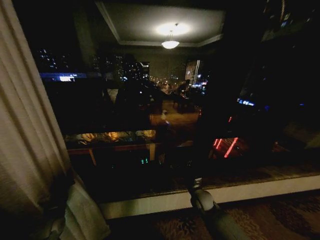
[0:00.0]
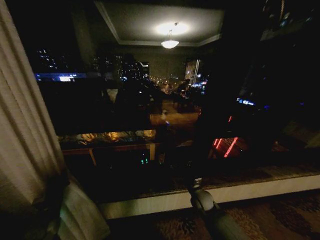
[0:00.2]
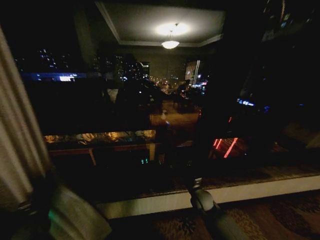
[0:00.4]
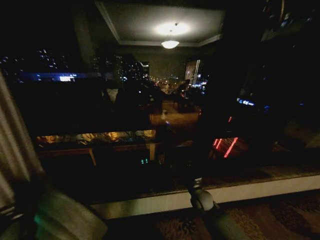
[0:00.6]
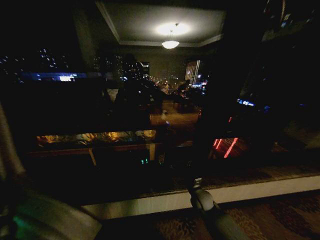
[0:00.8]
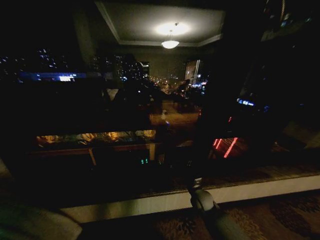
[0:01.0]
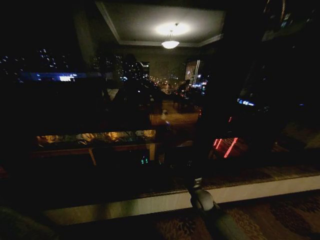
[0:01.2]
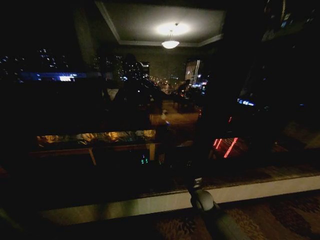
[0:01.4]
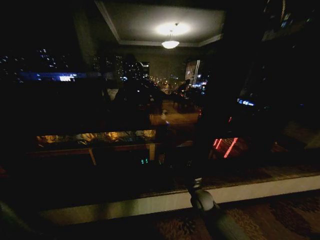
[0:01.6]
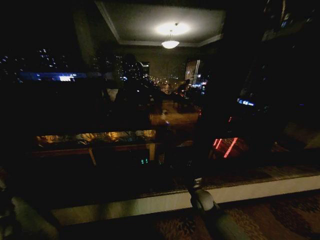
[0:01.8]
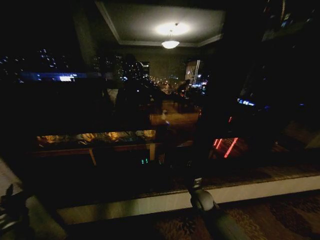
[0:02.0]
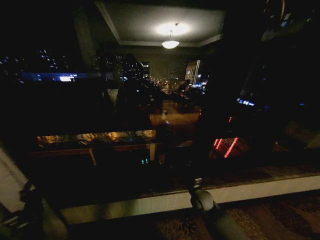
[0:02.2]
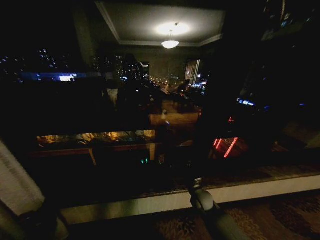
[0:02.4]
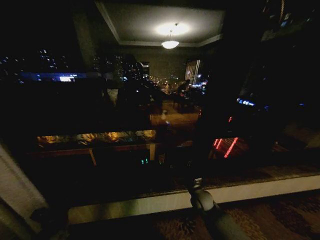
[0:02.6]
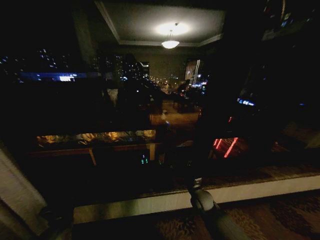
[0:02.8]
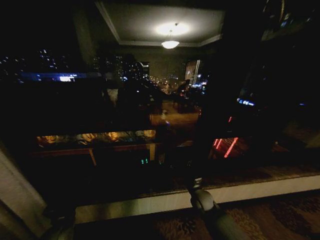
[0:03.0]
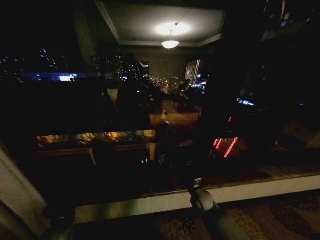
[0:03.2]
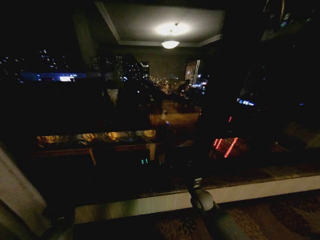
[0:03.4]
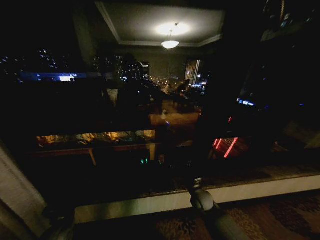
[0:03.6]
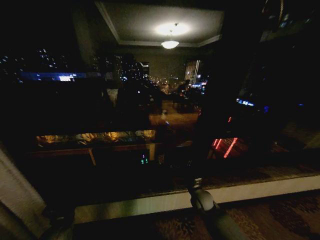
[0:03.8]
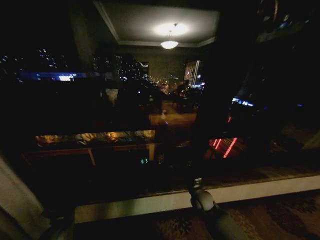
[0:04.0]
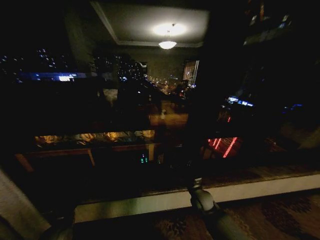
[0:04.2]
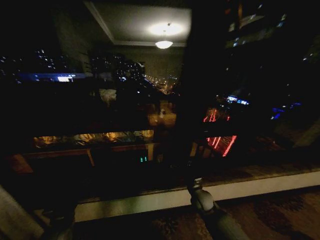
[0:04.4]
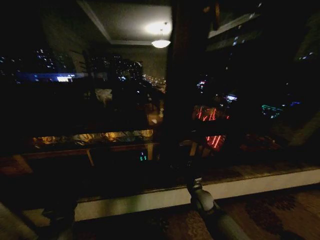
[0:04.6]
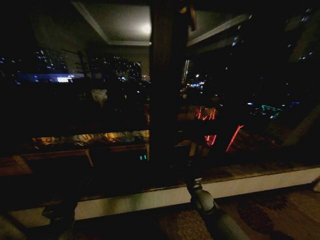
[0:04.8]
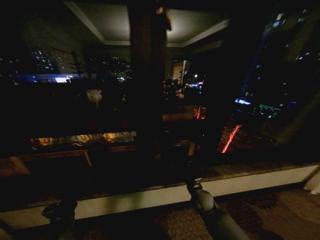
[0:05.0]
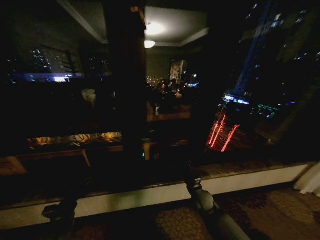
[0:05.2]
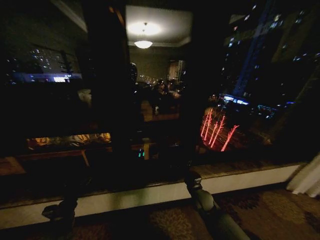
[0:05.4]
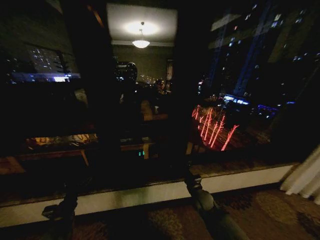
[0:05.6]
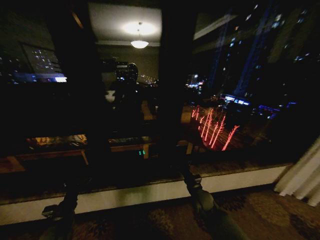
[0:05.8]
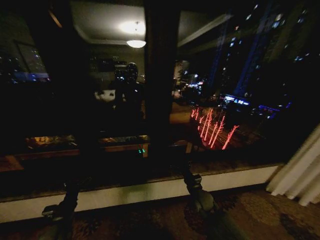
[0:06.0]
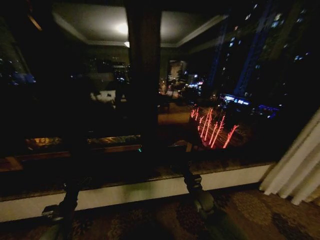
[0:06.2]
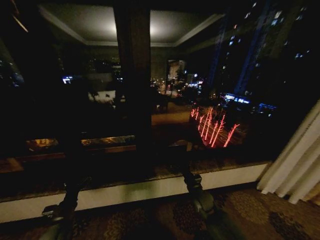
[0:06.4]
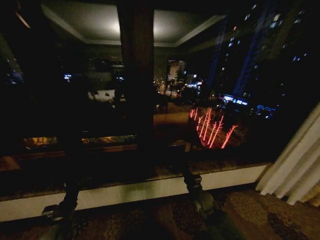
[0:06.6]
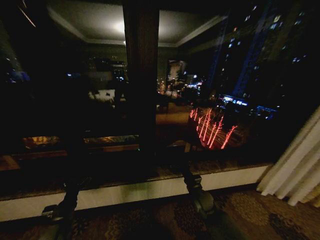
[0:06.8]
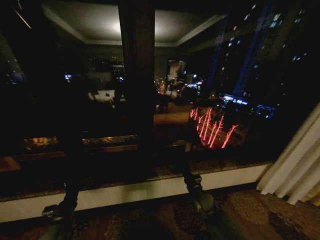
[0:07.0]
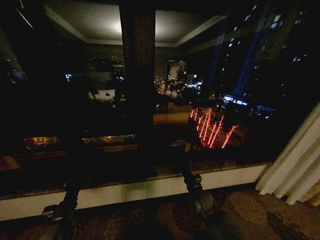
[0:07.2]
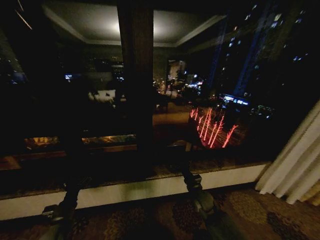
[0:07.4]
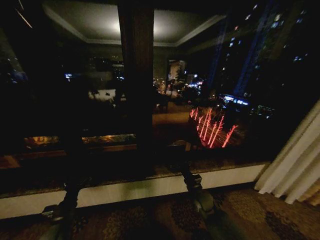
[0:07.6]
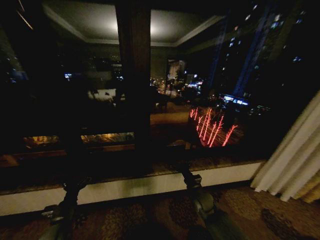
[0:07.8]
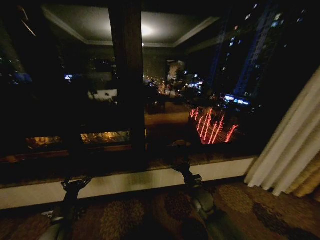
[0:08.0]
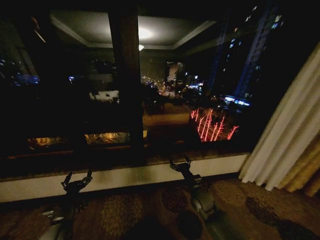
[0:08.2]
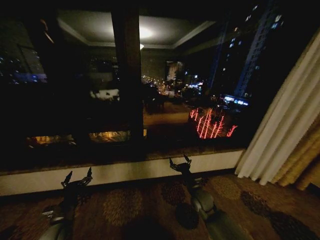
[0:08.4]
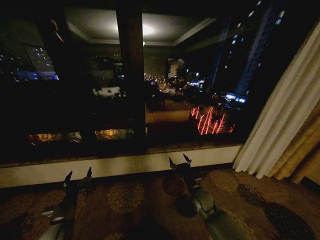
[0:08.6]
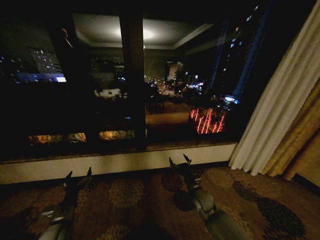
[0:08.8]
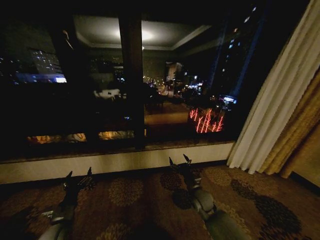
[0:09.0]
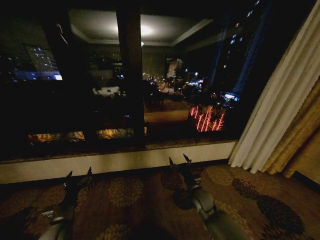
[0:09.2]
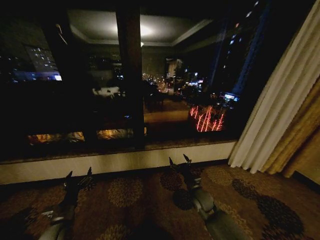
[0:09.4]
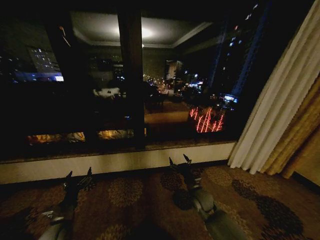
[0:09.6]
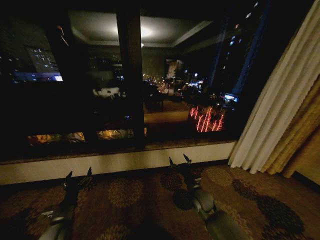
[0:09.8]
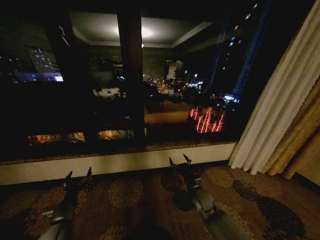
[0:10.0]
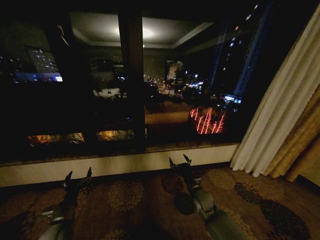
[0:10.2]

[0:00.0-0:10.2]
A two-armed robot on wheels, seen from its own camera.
Task of the whole recording: Open the curtains by pulling them apart, changing their state from closed to fully open.
0:00.0 to 0:01.4: The left gripper goes some 25 cm to the left.
0:01.4 to 0:03.0: The left gripper moves to the right, about 30 cm, and opens.
0:03.0 to 0:04.4: Neither gripper changes place.
0:05.8 to 0:07.2: The two grippers keep their place.
0:08.8 to 0:10.2: Neither gripper changes place.

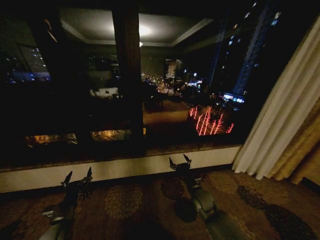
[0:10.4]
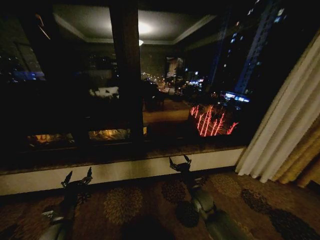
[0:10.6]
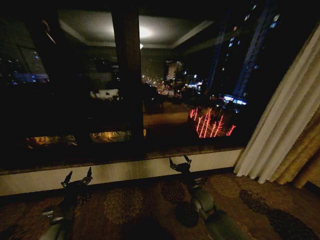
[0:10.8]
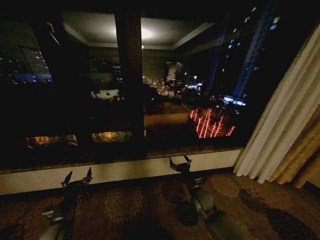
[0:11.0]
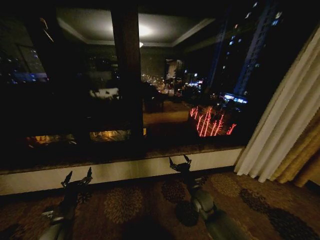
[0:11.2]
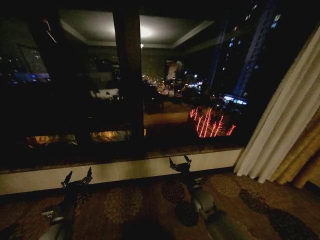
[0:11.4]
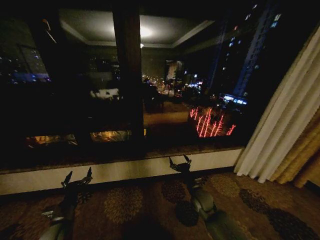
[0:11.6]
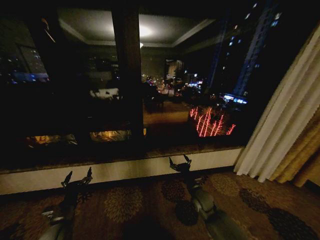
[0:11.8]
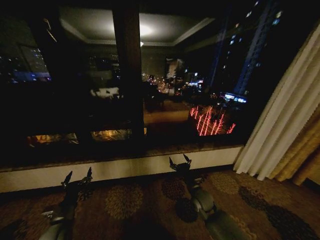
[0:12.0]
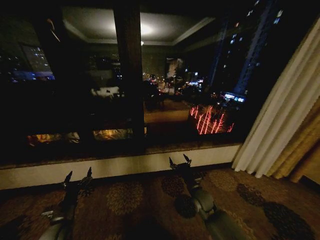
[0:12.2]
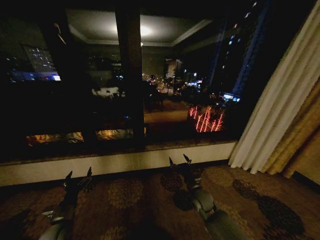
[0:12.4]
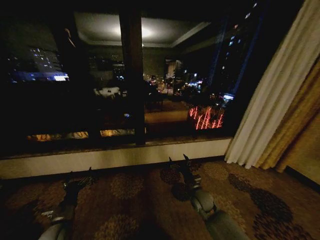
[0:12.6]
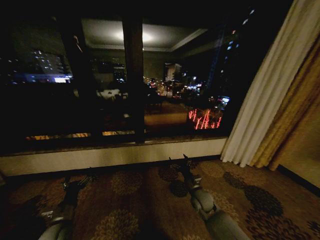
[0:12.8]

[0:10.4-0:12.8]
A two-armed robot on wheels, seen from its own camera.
Task of the whole recording: Open the curtains by pulling them apart, changing their state from closed to fully open.
0:10.4 to 0:11.6: Neither gripper changes place.
